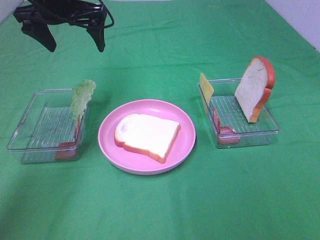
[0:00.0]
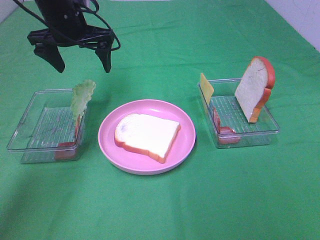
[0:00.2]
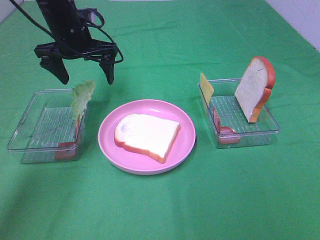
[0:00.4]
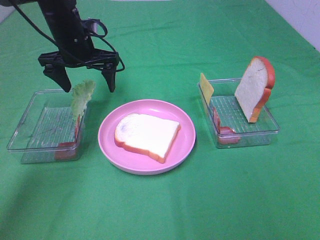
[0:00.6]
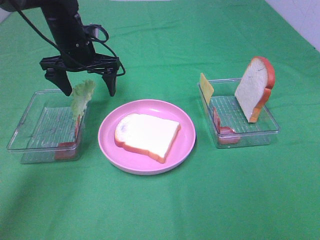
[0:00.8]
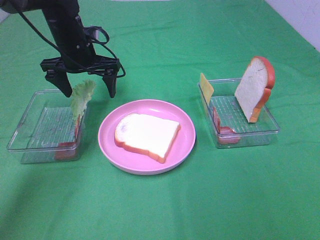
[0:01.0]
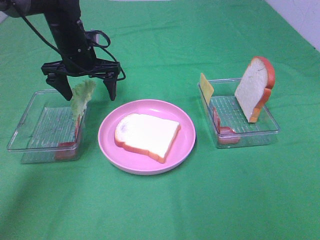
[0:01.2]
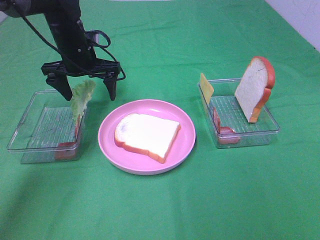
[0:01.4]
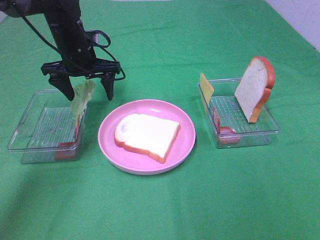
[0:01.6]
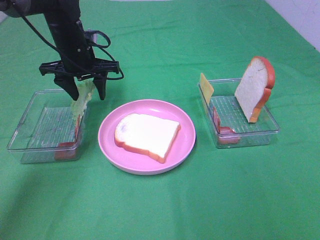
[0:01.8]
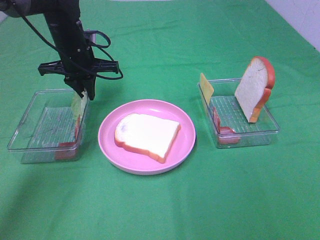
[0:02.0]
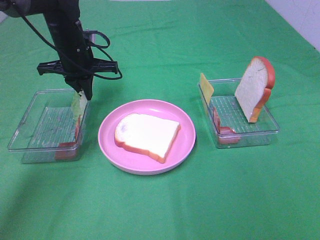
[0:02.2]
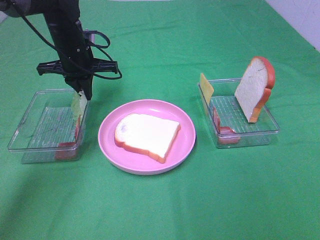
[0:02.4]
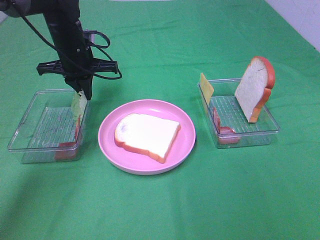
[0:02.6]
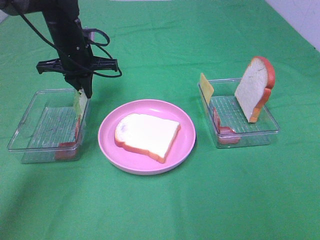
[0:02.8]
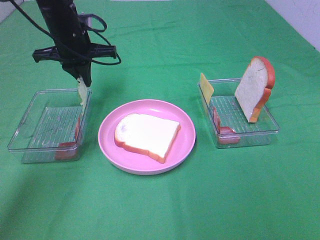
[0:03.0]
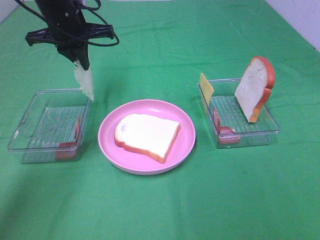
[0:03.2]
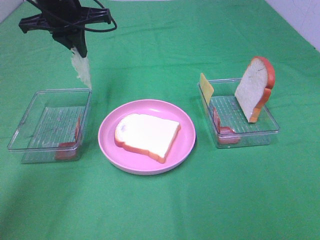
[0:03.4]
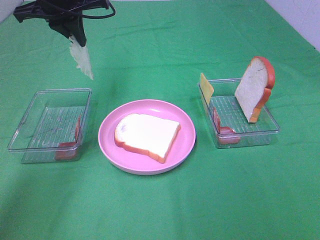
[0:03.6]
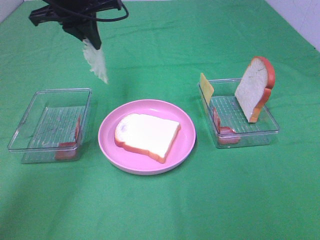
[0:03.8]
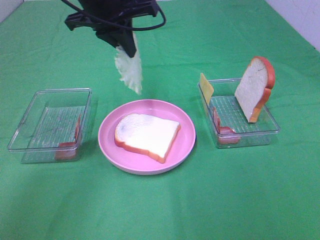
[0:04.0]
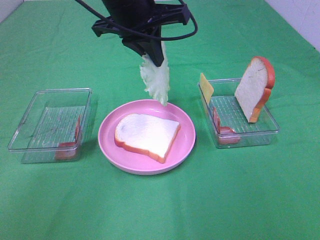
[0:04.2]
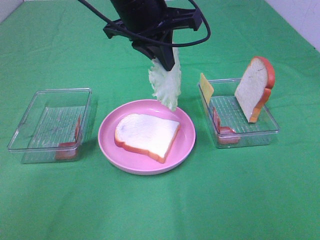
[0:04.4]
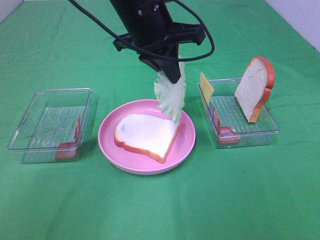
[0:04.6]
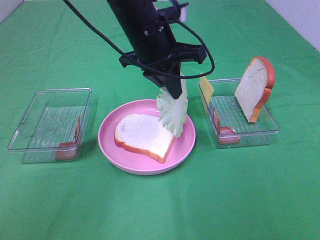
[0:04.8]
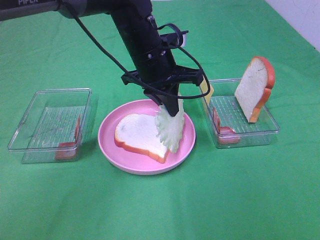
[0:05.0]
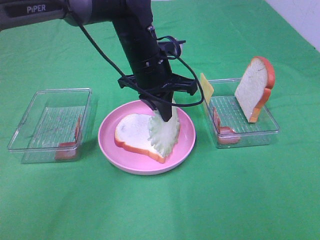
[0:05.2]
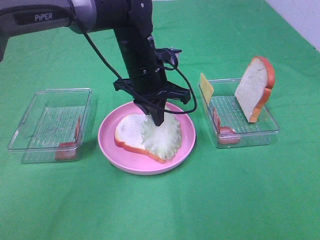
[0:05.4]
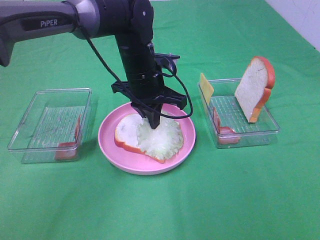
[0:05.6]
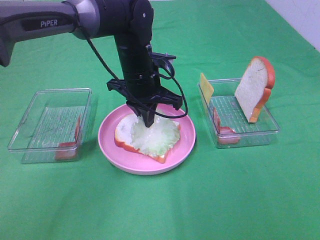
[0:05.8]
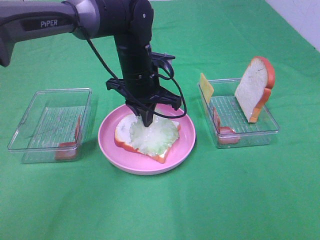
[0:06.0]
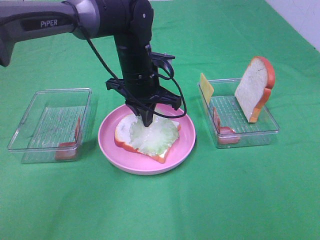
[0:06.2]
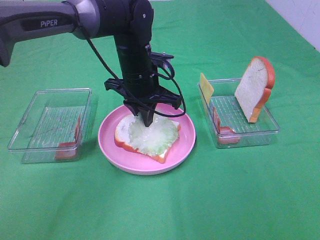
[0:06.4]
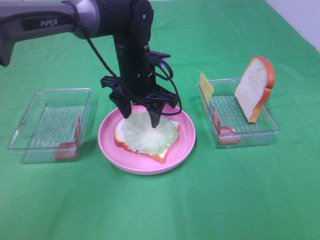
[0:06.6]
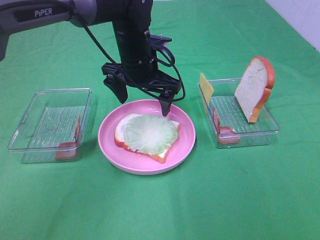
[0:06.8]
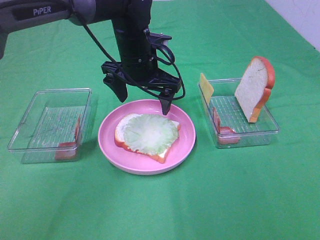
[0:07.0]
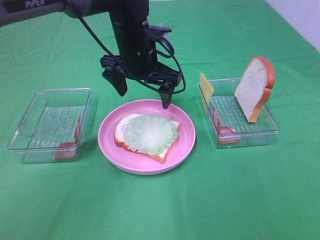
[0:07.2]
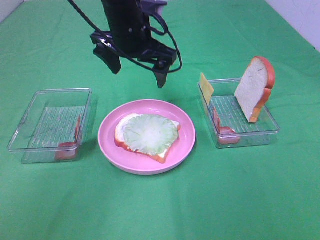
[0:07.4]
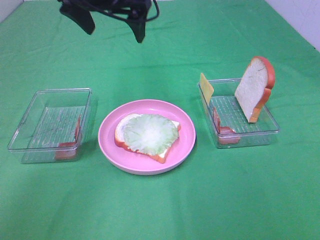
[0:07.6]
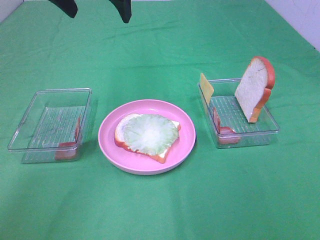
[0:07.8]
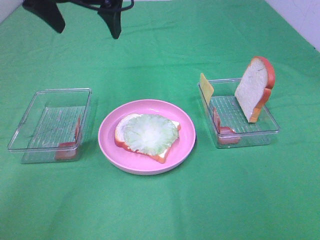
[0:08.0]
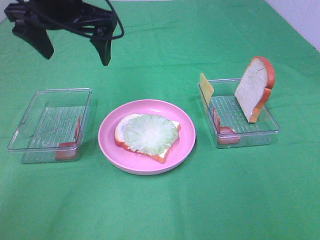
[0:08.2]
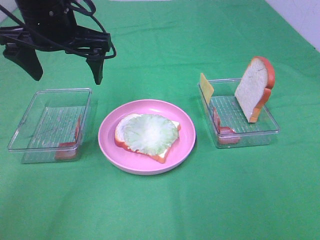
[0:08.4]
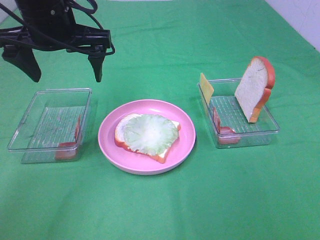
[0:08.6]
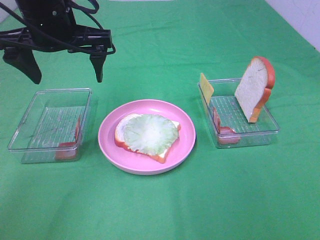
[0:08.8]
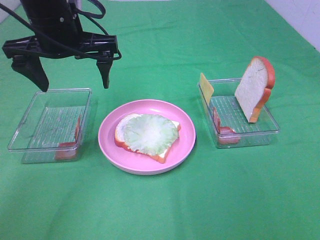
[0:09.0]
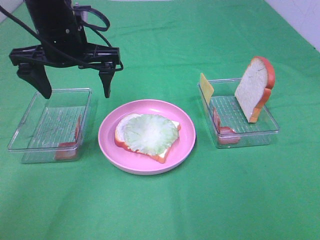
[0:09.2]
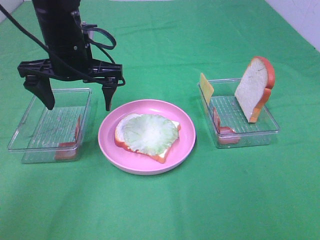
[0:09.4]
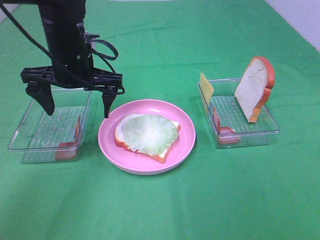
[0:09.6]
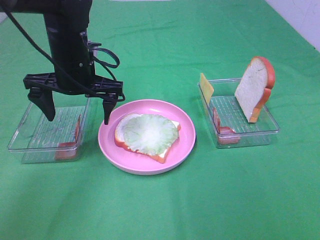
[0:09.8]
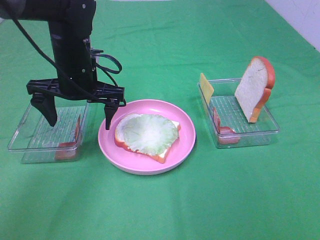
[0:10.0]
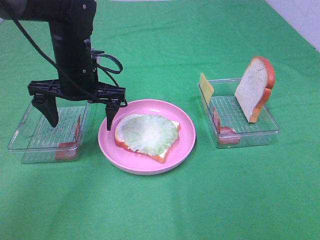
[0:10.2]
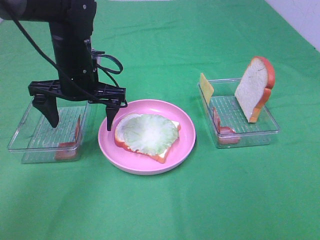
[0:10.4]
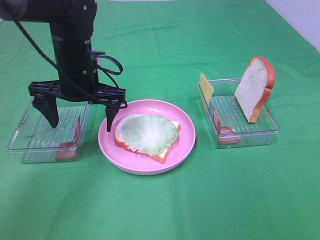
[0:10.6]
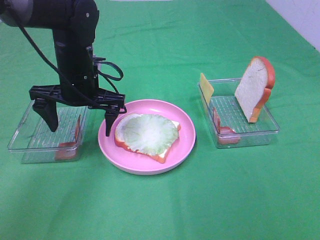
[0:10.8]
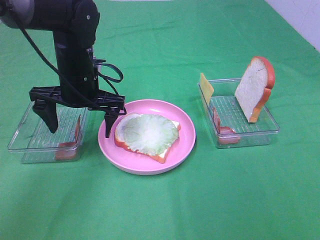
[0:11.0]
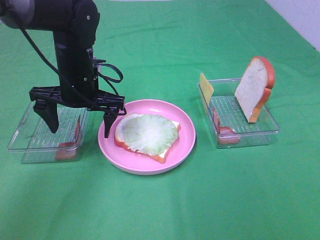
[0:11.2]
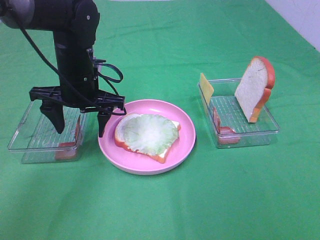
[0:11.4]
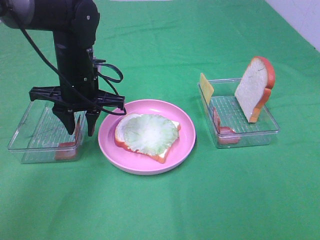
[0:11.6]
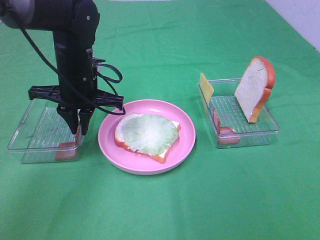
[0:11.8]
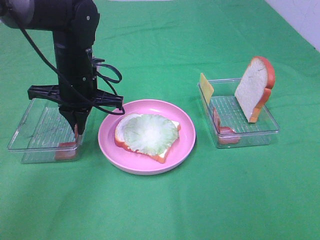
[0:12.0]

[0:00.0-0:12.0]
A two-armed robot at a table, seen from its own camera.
Task of the whole recording: Make sandwiches.
Step, 0:00.0 to 0:02.0: Left hand:grab the lettuce slice.
Step, 0:02.2 to 0:06.6: Left hand:place the lettuce slice on the bread slice.
Step, 0:06.8 to 0:12.0: Left hand:grab the bacon.
0:00.0 to 0:01.6: The left gripper moves downward, about 10 cm.
0:01.6 to 0:03.0: The left gripper closes.
0:03.0 to 0:04.4: The left gripper moves to the right, backward and upward, approximately 20 cm.
0:04.4 to 0:06.0: The left gripper goes roughly 15 cm downward.
0:06.0 to 0:07.6: The left gripper travels upward by roughly 15 cm, and opens up.
0:07.6 to 0:09.0: The left gripper goes roughly 5 cm downward.
0:09.0 to 0:10.4: The left gripper moves downward, approximately 10 cm.
0:10.4 to 0:12.0: The left gripper closes its fingers.

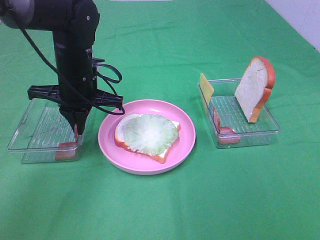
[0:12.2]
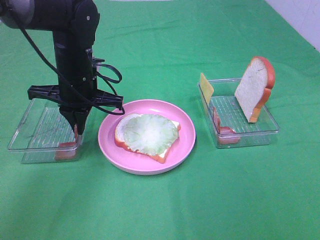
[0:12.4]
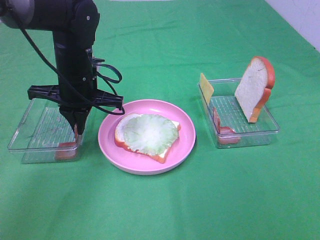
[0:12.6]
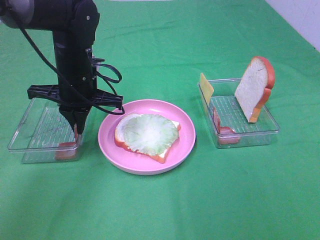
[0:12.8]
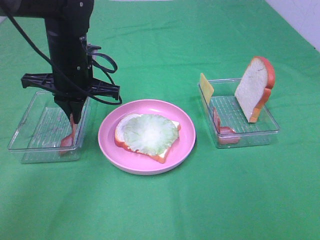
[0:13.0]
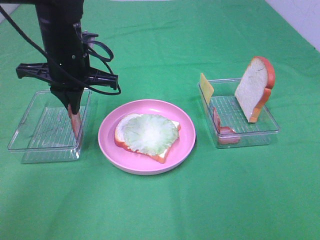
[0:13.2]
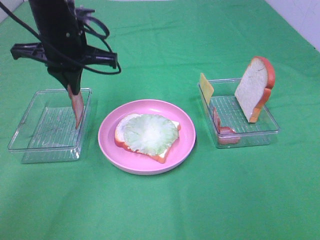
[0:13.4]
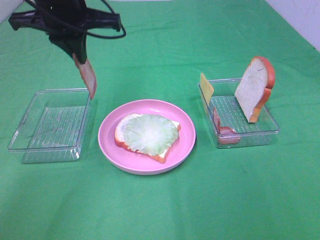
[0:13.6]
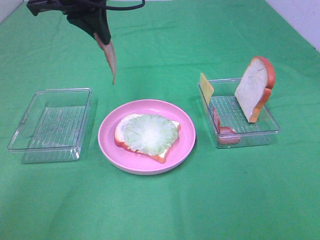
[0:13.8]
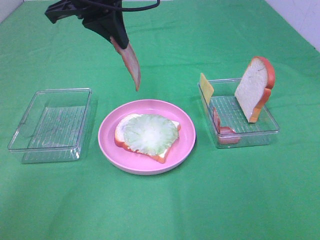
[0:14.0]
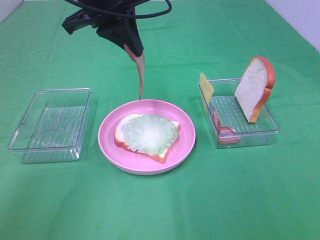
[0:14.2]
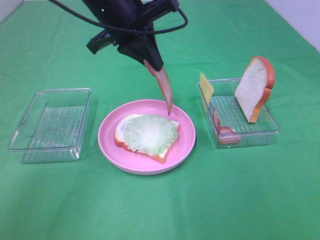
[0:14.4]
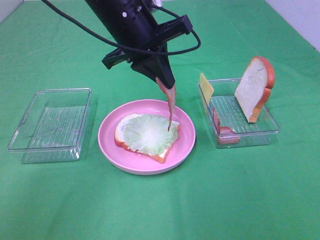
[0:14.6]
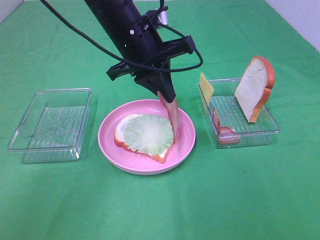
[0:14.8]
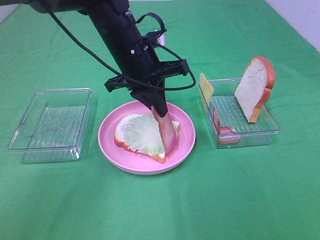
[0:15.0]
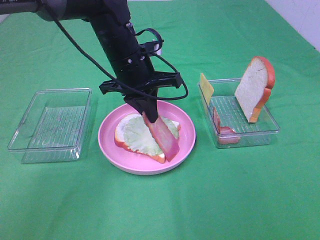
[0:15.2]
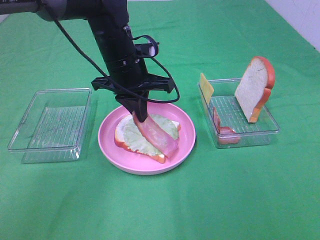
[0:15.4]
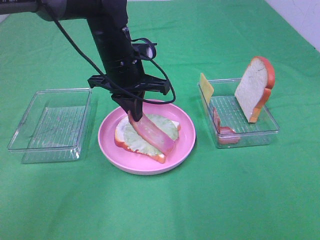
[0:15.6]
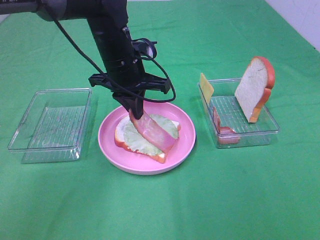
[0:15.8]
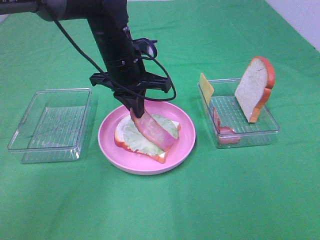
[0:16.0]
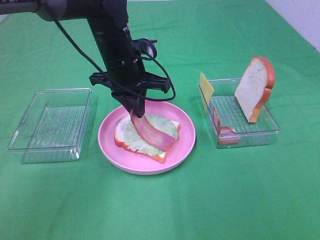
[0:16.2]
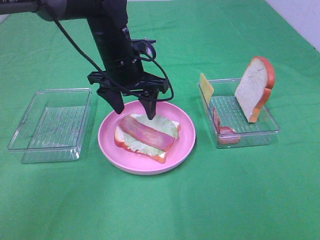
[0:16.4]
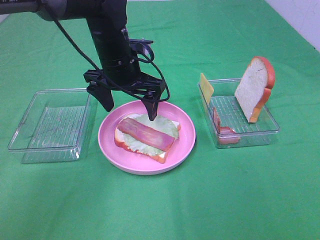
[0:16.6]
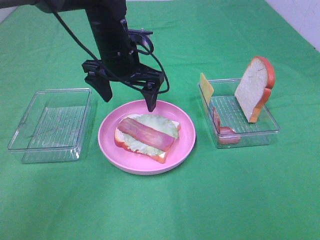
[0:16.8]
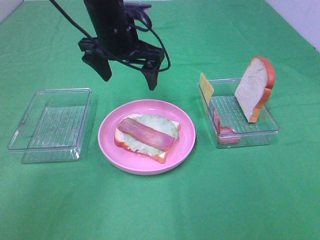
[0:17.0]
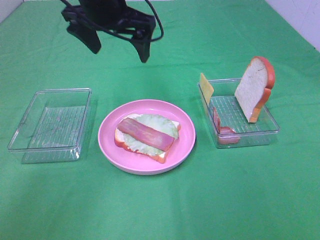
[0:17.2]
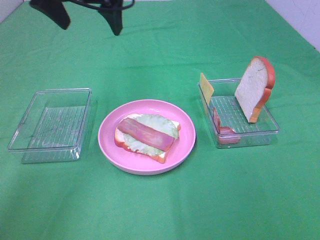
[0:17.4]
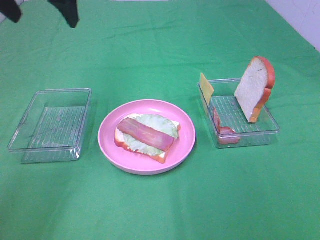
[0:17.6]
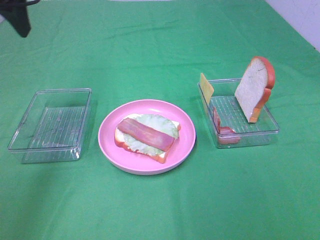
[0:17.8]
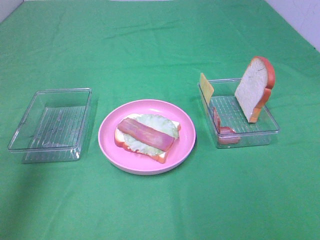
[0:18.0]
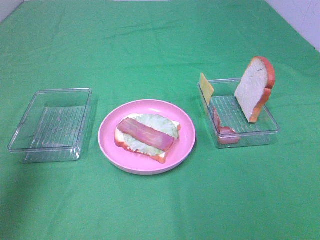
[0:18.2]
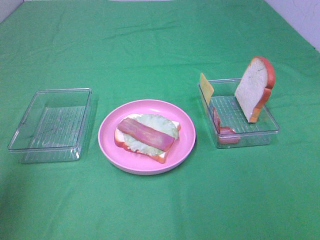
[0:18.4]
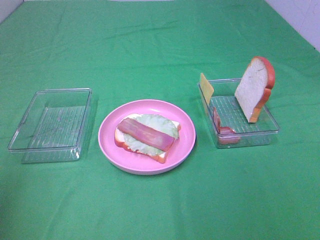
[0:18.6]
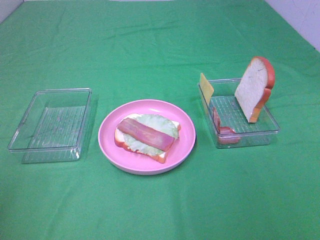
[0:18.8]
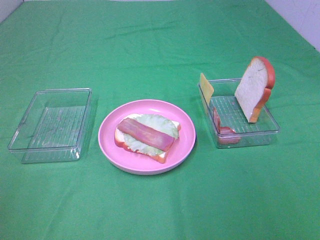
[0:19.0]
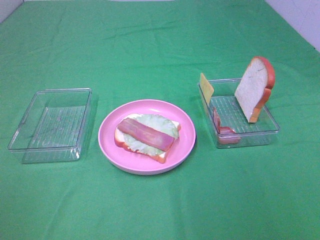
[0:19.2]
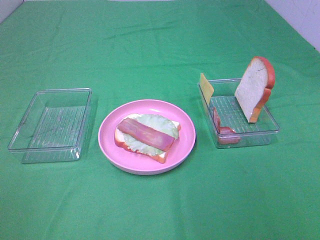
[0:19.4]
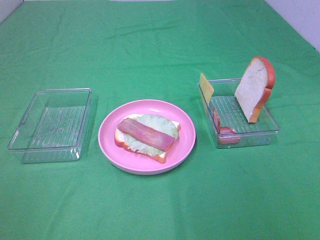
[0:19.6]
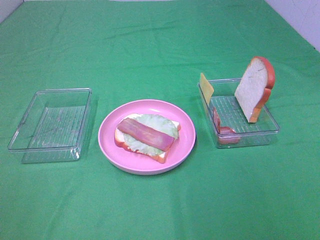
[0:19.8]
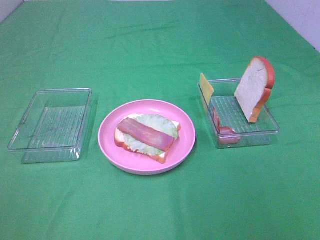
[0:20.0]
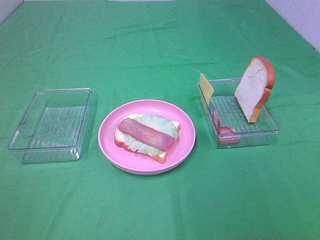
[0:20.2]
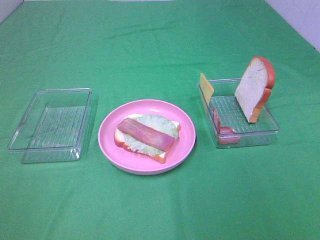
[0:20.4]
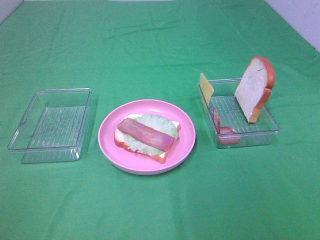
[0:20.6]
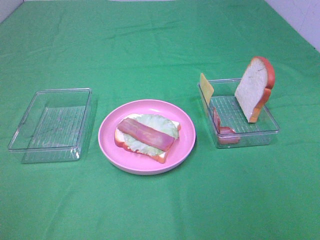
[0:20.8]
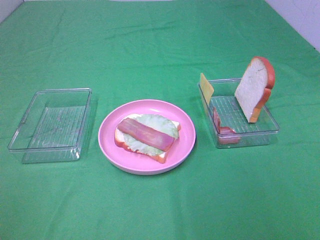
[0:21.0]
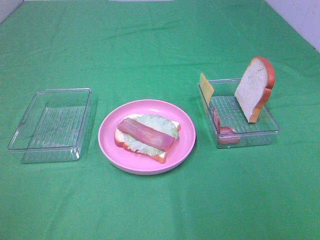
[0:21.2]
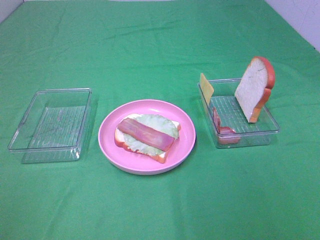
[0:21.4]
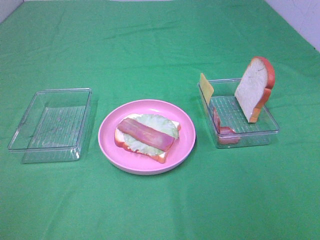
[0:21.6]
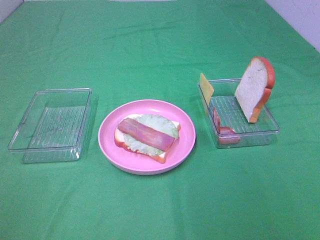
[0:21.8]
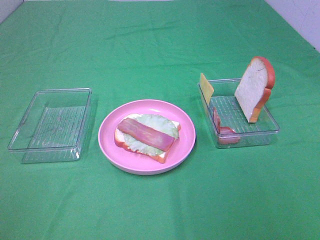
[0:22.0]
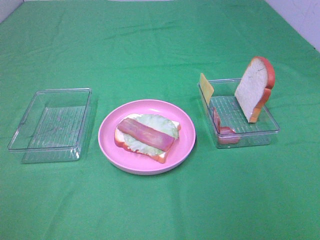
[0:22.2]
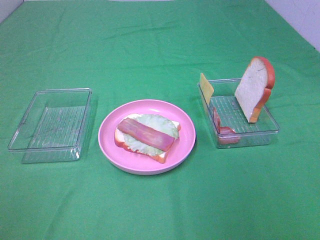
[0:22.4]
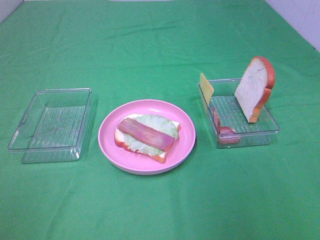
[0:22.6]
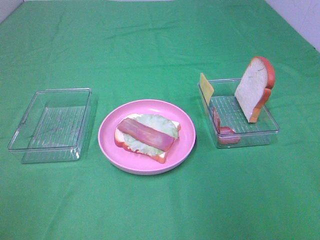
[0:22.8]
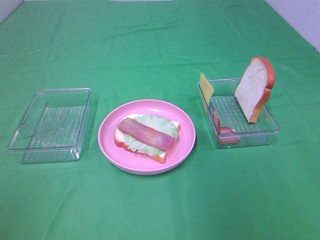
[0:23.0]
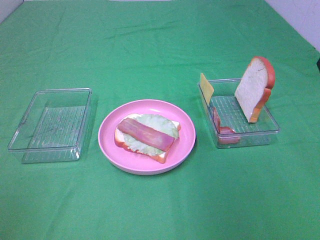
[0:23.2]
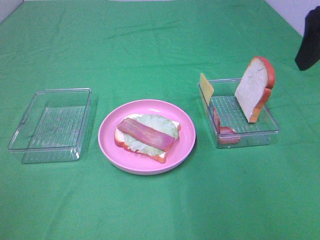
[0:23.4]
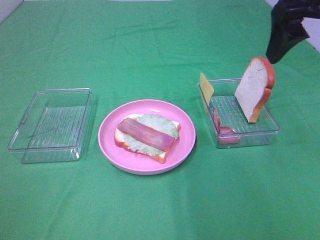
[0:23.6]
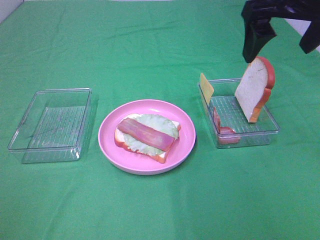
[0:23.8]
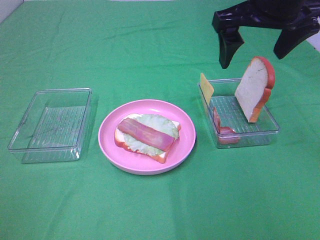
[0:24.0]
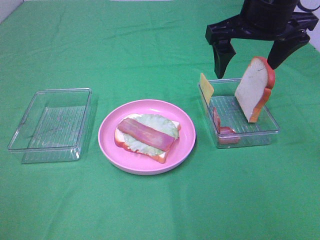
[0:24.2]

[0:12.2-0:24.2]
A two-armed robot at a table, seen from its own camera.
Task of the whole recording: Make sandwiches.
Step, 0:12.2 to 0:16.4: Left hand:place bacon on lettuce slice.
0:12.2 to 0:13.8: The left gripper heads upward, covering approximately 15 cm.
0:13.8 to 0:15.2: The left gripper travels downward and to the right by roughly 15 cm.
0:15.2 to 0:16.6: The left gripper opens up.
0:16.6 to 0:18.2: The left gripper moves to the left, upward and backward, approximately 35 cm.
0:18.2 to 0:19.8: The left gripper moves backward, approximately 25 cm.
0:22.6 to 0:24.2: The right gripper shifts about 25 cm forward and to the left.
